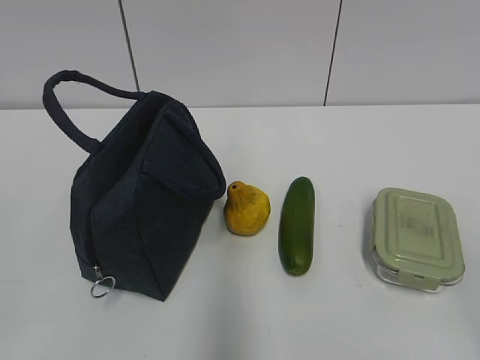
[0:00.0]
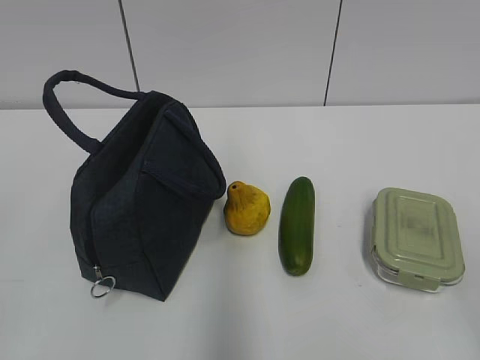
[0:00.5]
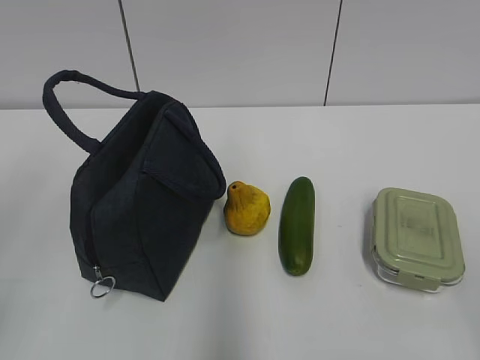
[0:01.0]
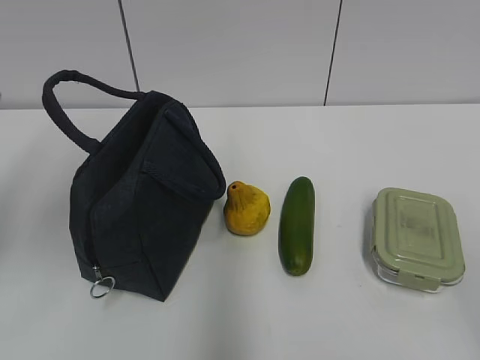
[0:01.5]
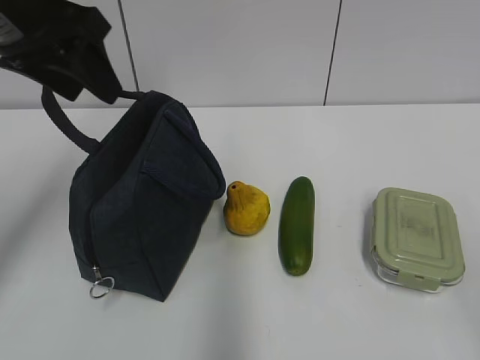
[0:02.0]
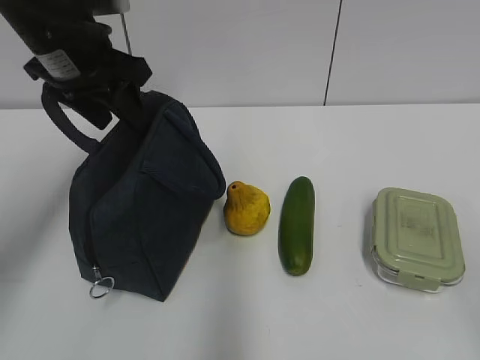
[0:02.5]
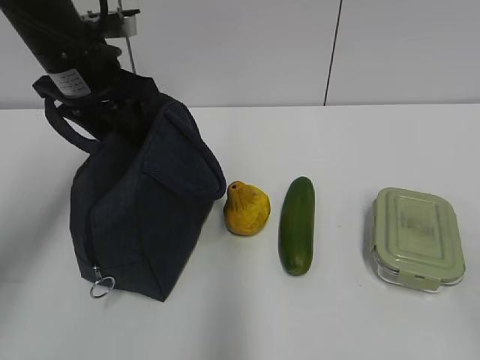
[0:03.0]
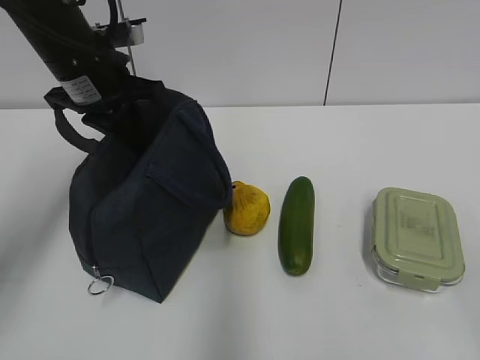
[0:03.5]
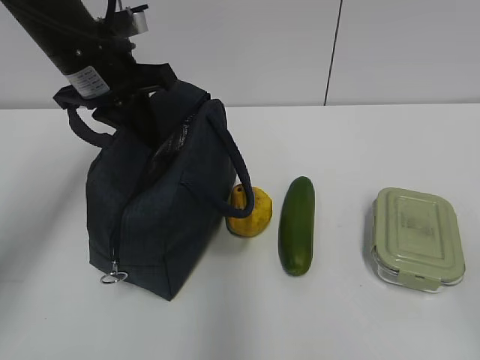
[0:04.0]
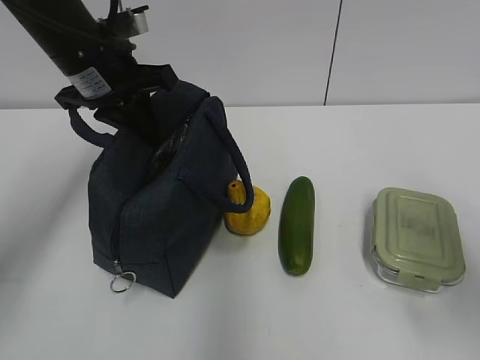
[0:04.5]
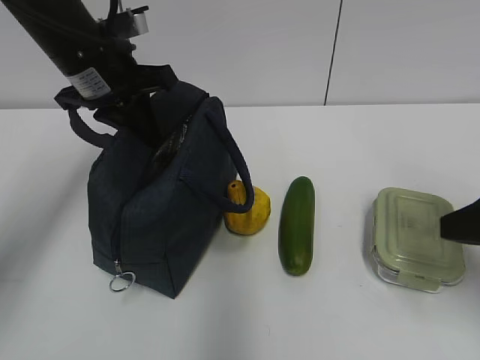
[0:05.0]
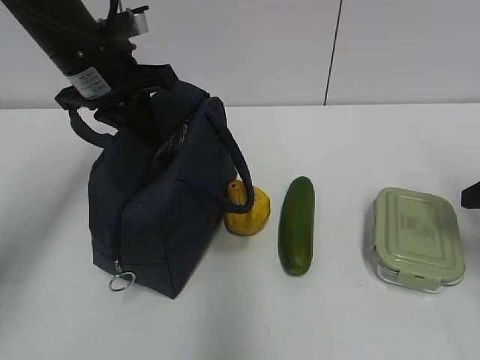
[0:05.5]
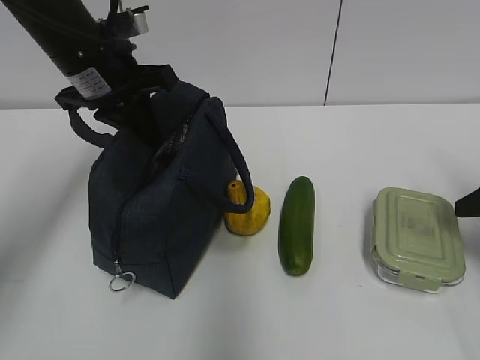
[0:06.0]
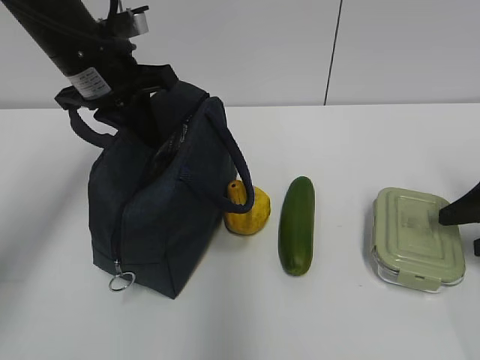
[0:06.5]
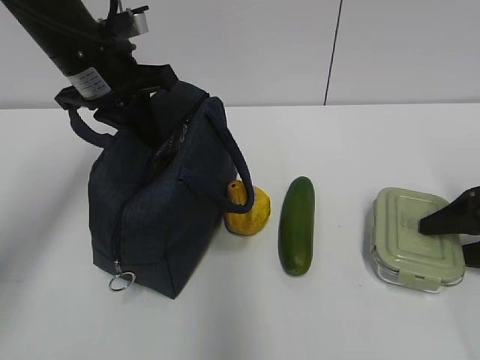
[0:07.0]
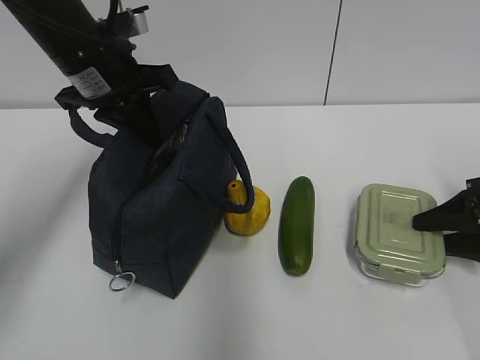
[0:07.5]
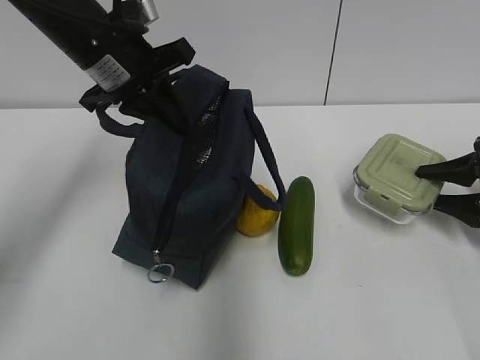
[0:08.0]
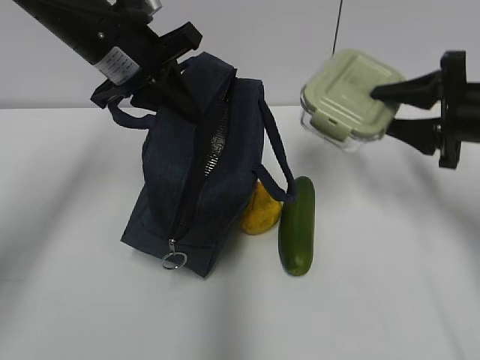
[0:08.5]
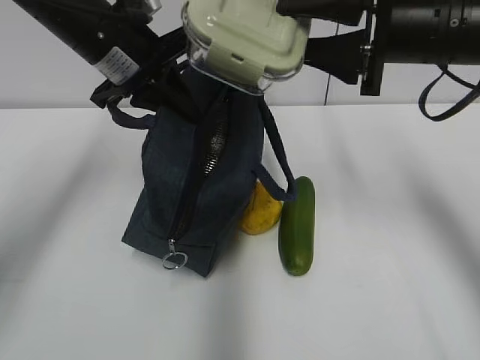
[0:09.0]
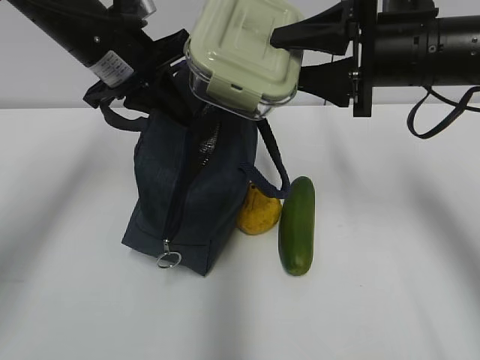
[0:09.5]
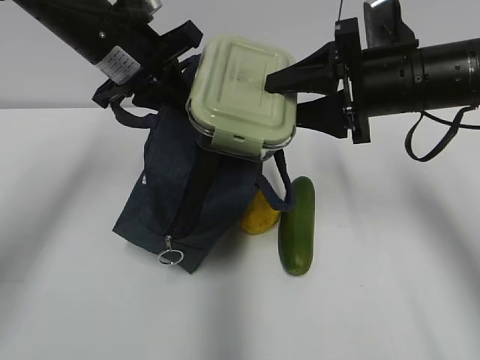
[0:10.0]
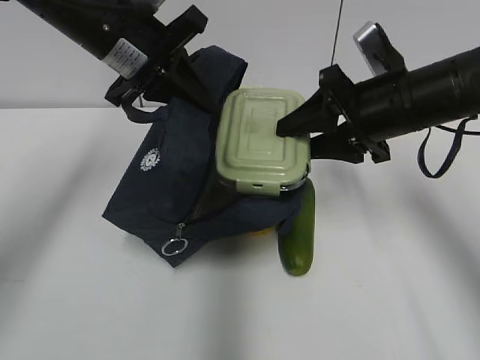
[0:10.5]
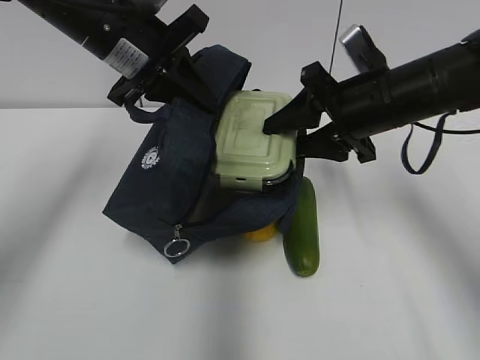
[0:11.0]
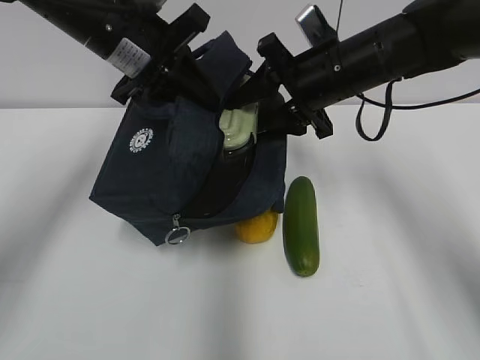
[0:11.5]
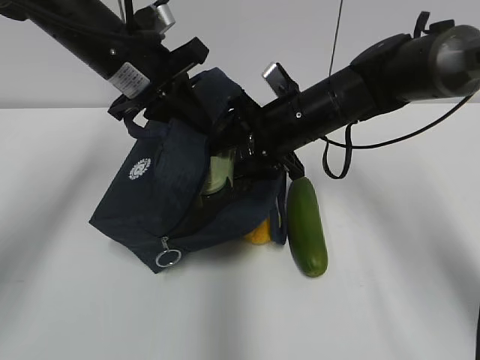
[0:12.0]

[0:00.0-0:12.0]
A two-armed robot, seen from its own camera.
0:02.0 to 0:04.0: The left gripper moves downward and forward, approximately 10 cm, and closes.
0:04.0 to 0:06.0: The right gripper heads forward, covering some 30 cm.
0:06.0 to 0:08.0: The right gripper is displaced downward and forward by approximately 10 cm.
0:08.0 to 0:10.0: The right gripper shifts roughly 25 cm to the left and upward.
0:10.0 to 0:12.0: The right gripper is displaced to the left, downward and forward by about 10 cm.

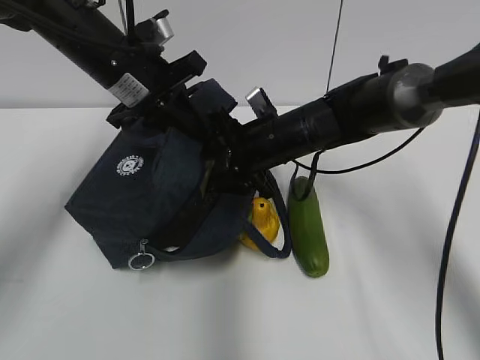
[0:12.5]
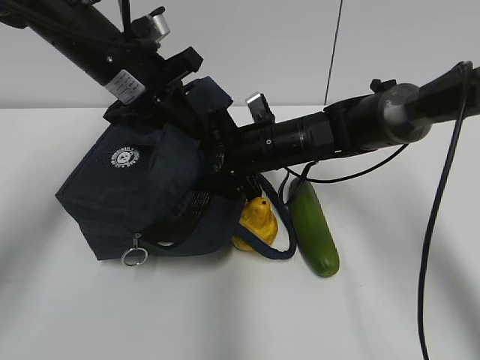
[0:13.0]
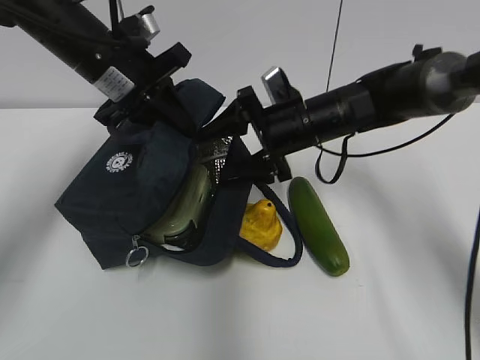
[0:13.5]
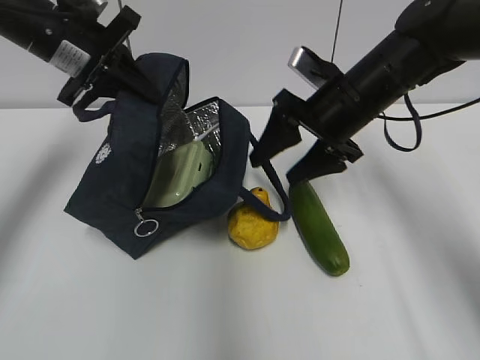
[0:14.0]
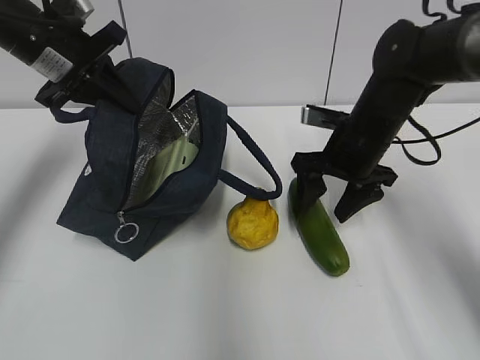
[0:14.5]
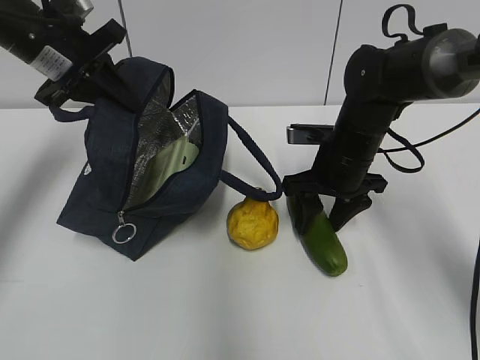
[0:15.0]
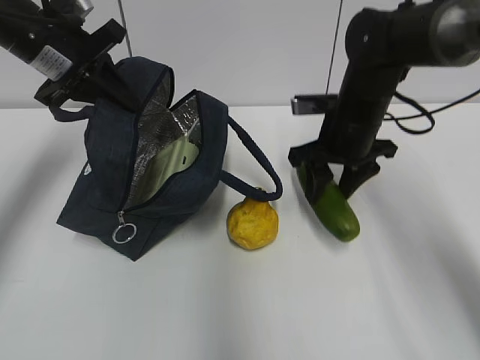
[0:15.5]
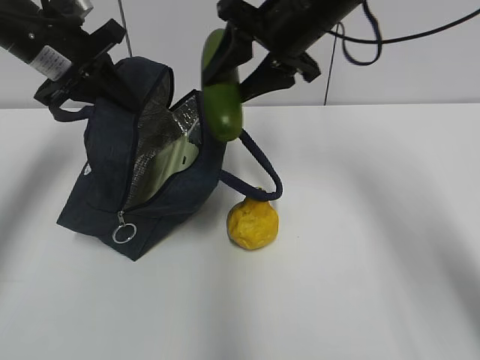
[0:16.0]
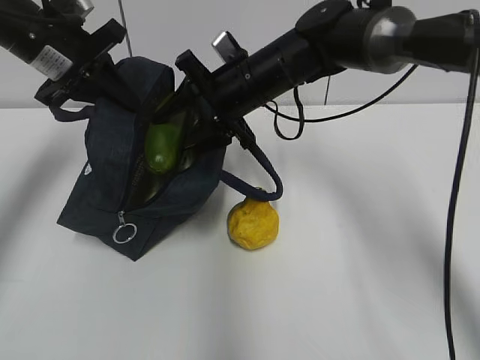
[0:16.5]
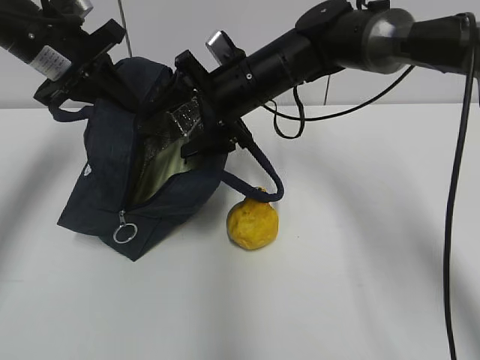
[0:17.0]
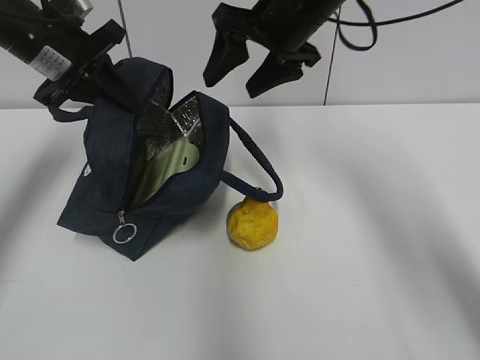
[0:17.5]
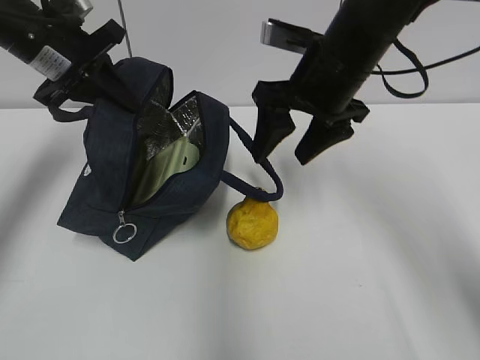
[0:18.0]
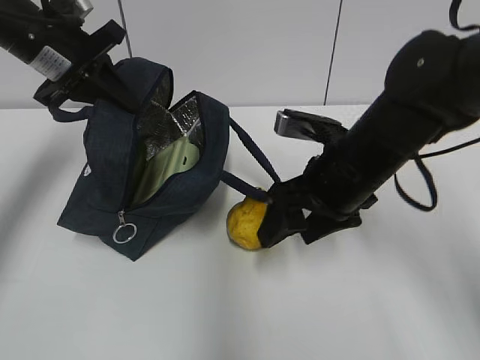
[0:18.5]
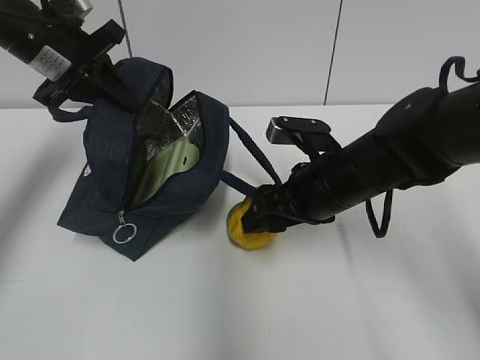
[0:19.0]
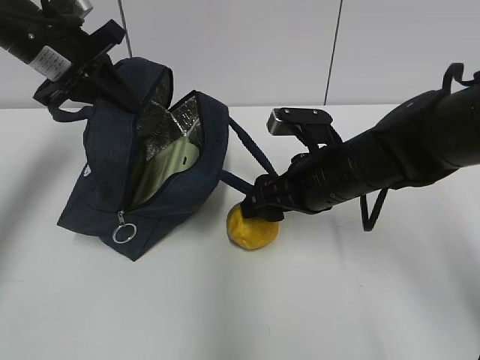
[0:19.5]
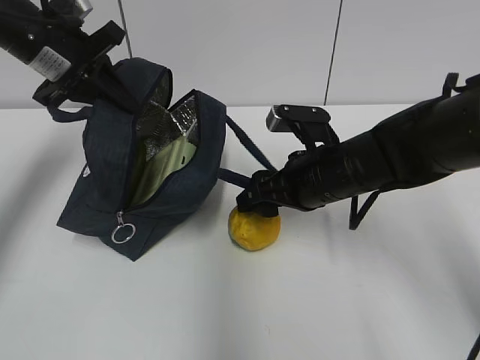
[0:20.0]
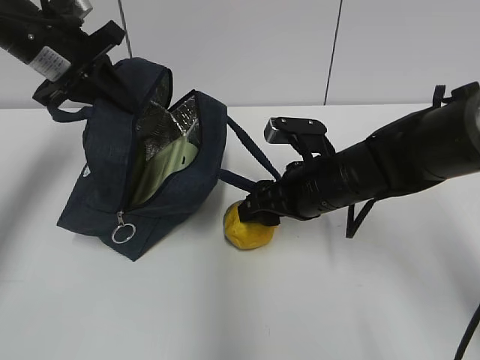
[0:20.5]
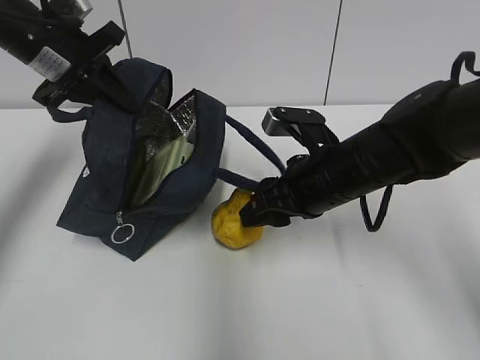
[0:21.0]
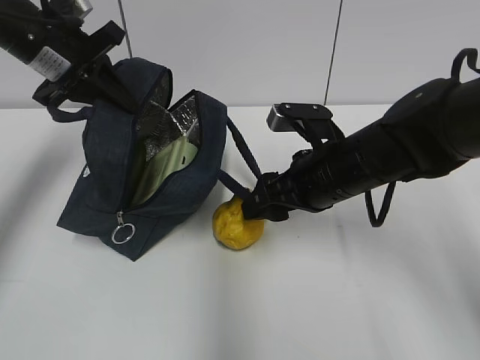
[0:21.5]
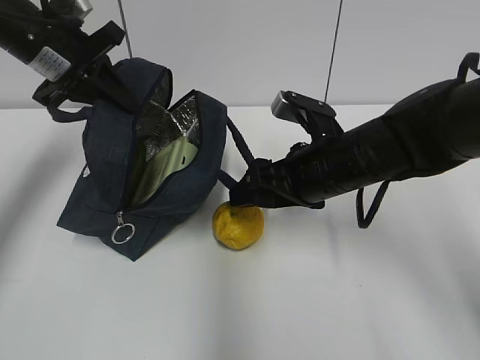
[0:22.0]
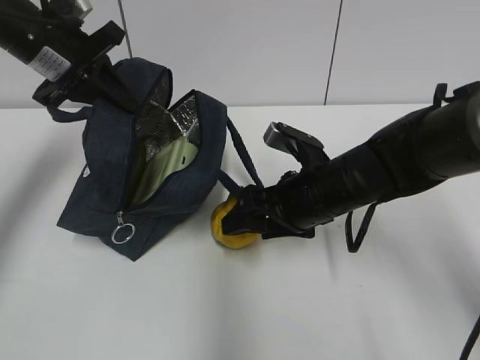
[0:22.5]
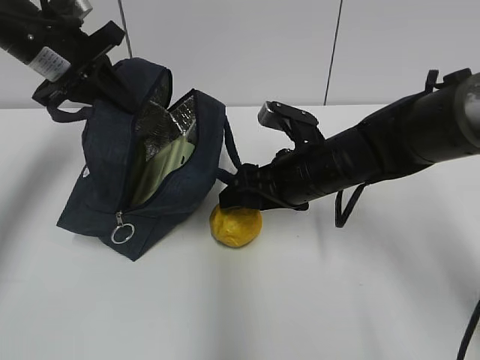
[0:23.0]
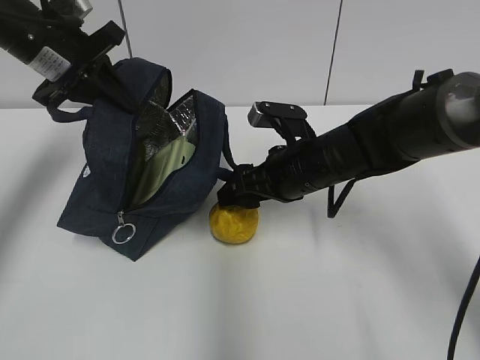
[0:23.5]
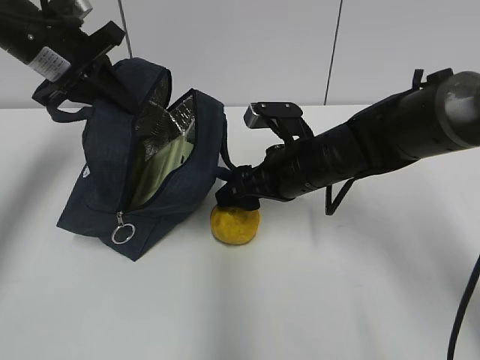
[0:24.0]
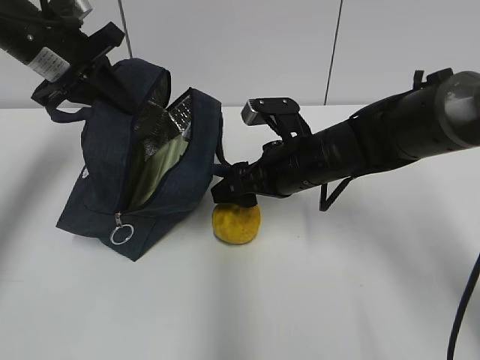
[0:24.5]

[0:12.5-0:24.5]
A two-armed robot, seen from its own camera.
0:12.5 to 0:14.5: The left gripper is displaced to the left by about 10 cm. Meanwhile the right gripper shifts some 10 cm to the right.
0:14.5 to 0:16.5: The right gripper goes roughly 15 cm to the left, and goes upward and returns, approximately 15 cm each way.
0:16.5 to 0:18.5: The right gripper travels backward and to the right by some 15 cm.
0:18.5 to 0:20.5: The right gripper heads downward, covering some 5 cm.
0:20.5 to 0:22.5: The grippers stay close to where they were, moving slightly.

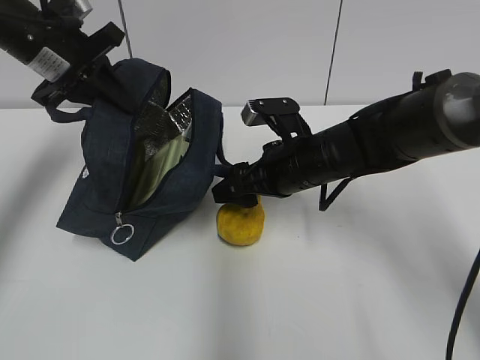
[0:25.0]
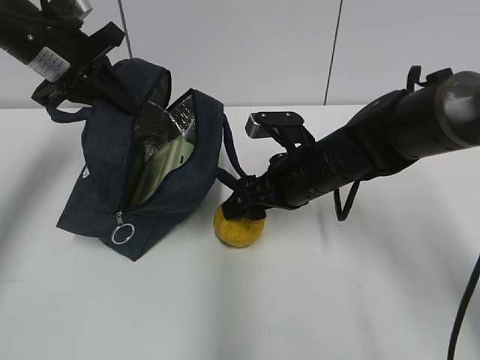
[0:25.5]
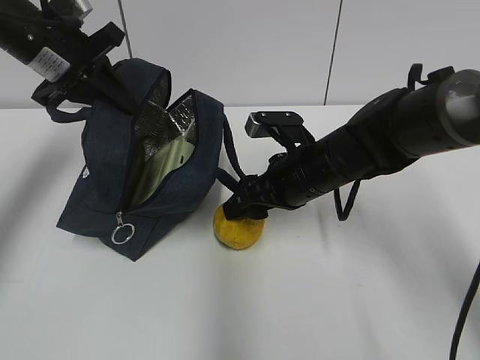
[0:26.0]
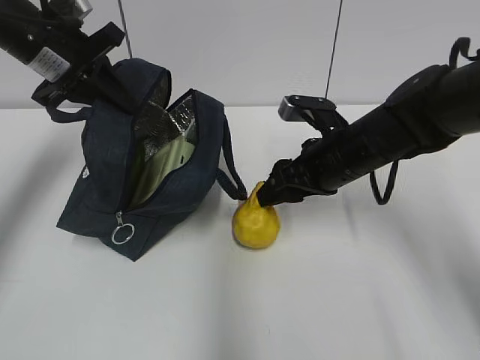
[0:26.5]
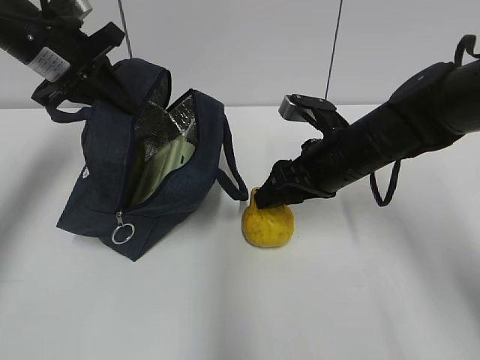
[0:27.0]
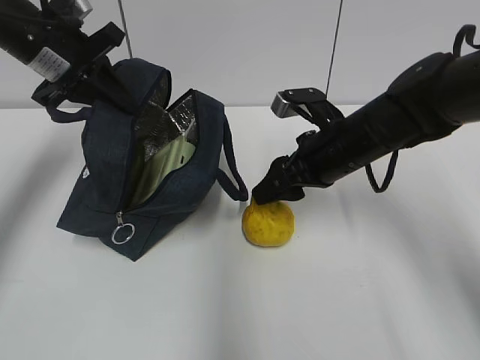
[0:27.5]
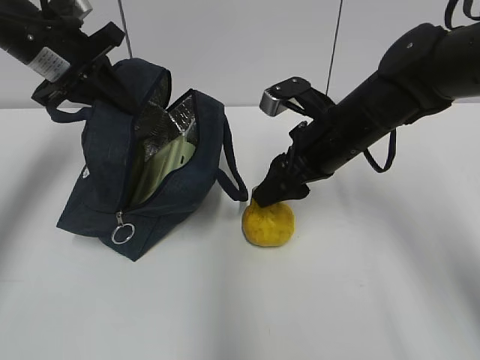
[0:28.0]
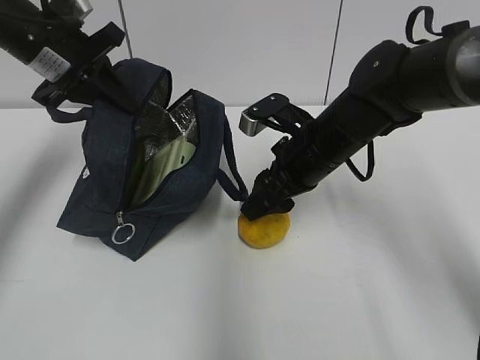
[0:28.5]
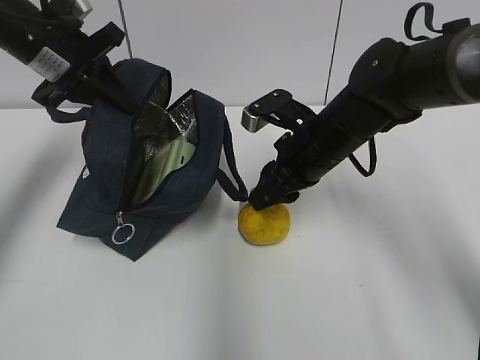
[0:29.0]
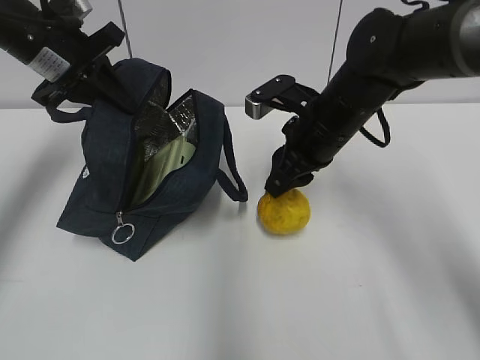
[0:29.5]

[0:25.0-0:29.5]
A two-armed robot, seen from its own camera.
0:25.0 to 0:27.0: There are only small adjustments of the grippers.
0:27.0 to 0:29.5: The right gripper closes.
